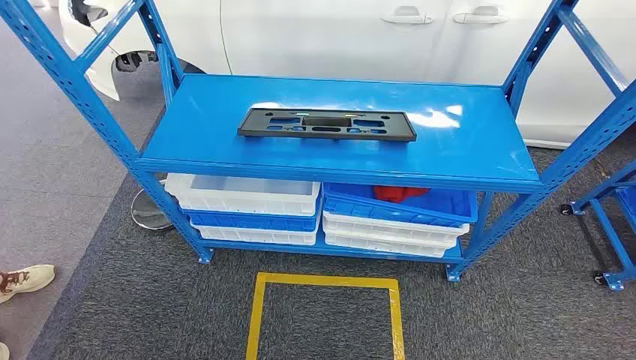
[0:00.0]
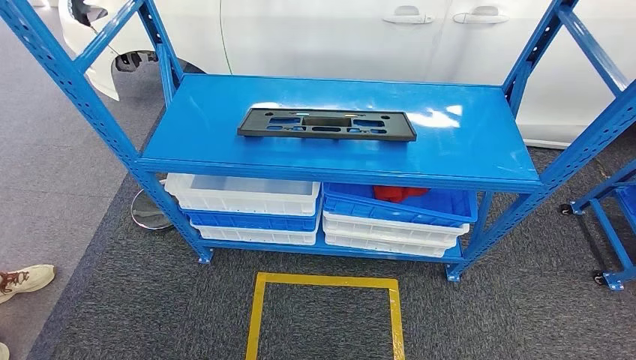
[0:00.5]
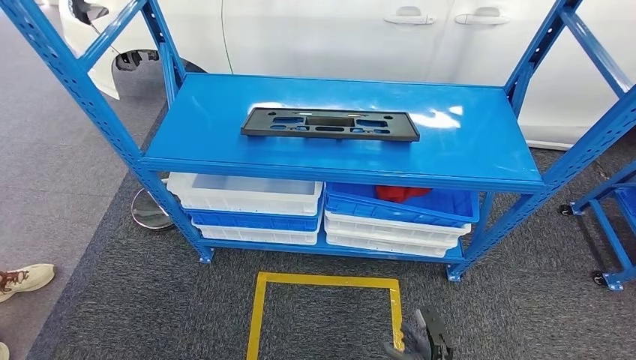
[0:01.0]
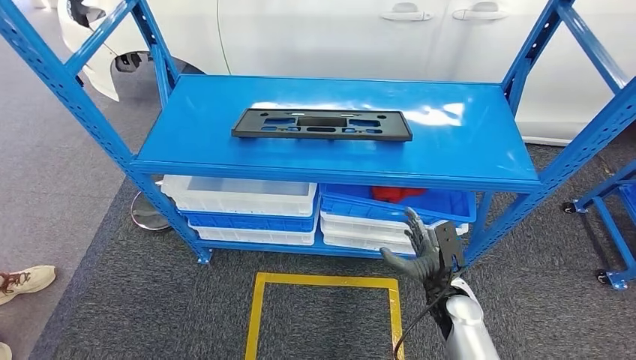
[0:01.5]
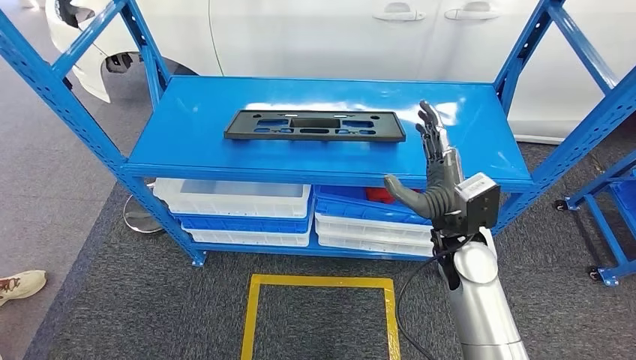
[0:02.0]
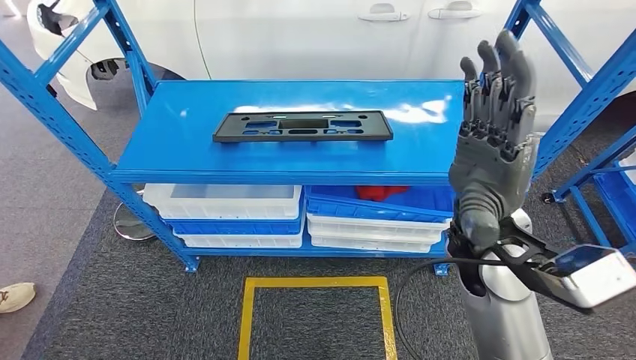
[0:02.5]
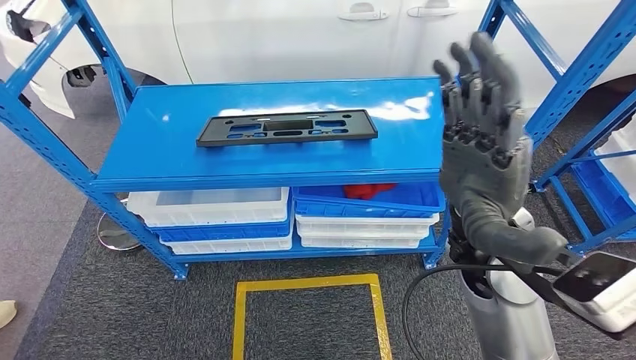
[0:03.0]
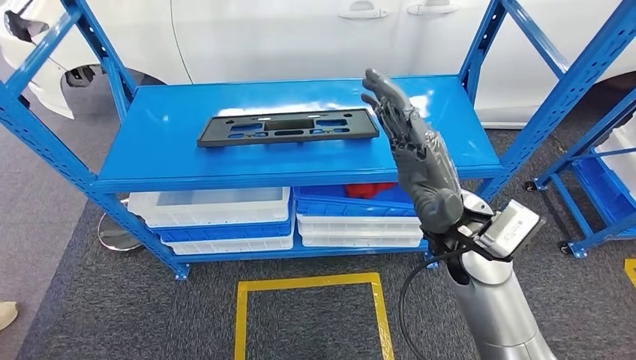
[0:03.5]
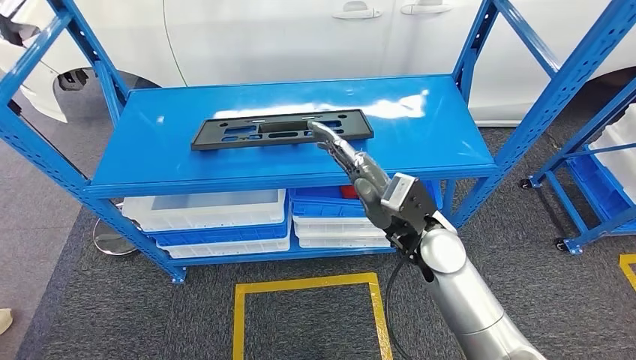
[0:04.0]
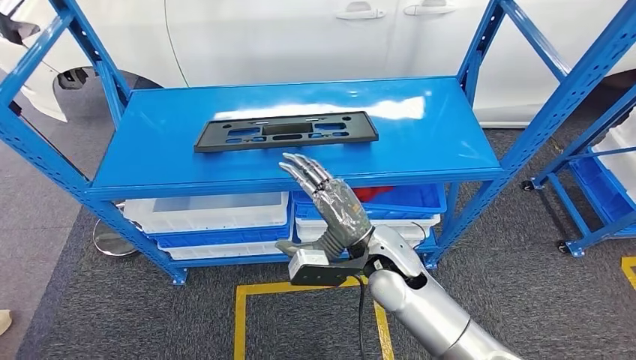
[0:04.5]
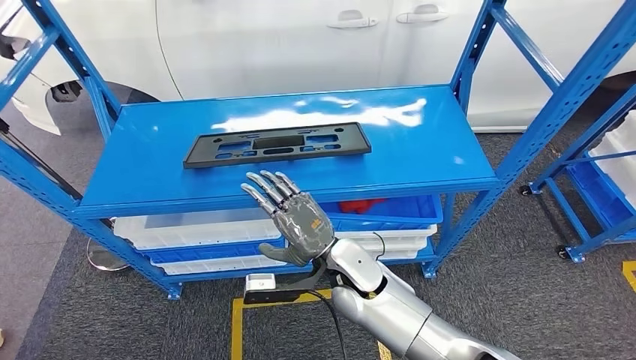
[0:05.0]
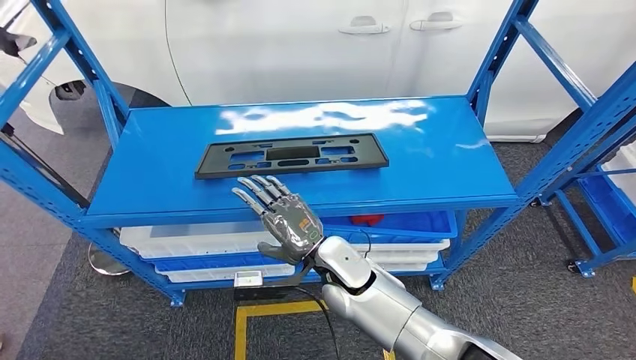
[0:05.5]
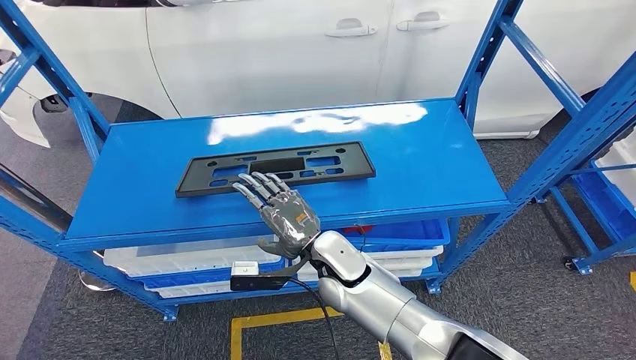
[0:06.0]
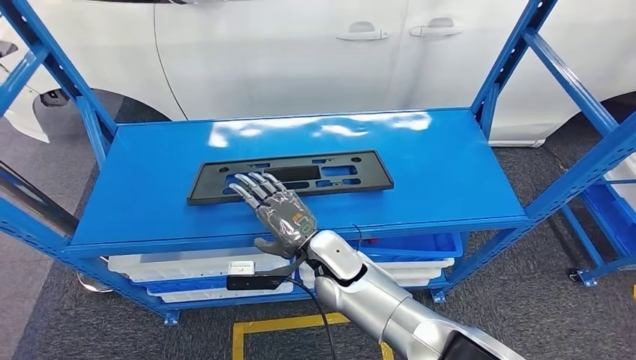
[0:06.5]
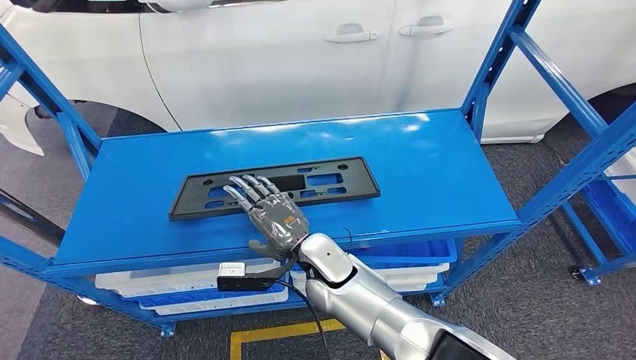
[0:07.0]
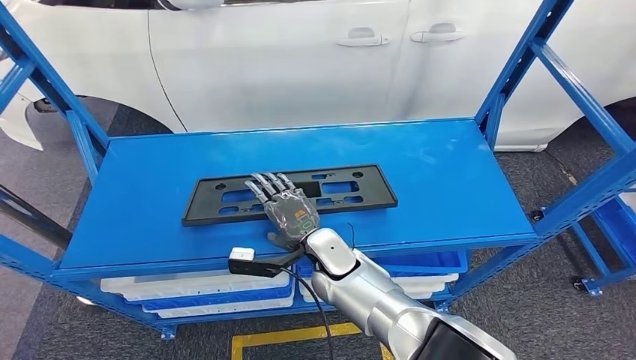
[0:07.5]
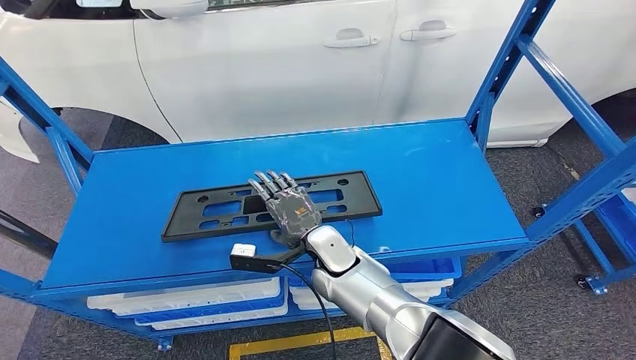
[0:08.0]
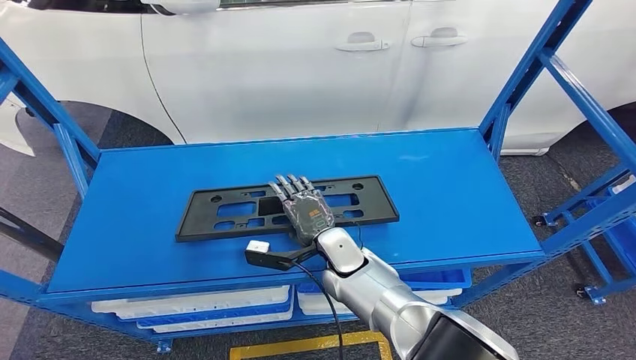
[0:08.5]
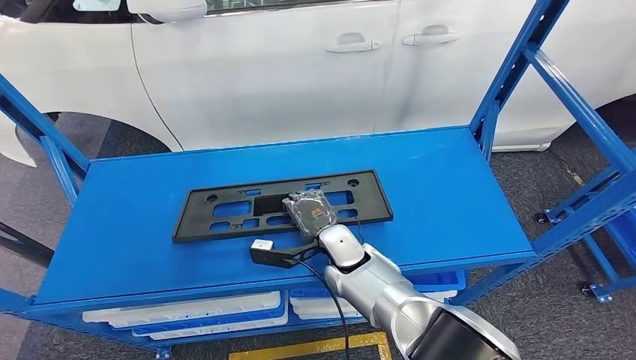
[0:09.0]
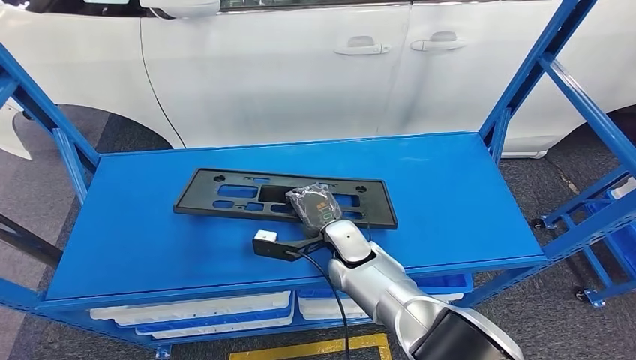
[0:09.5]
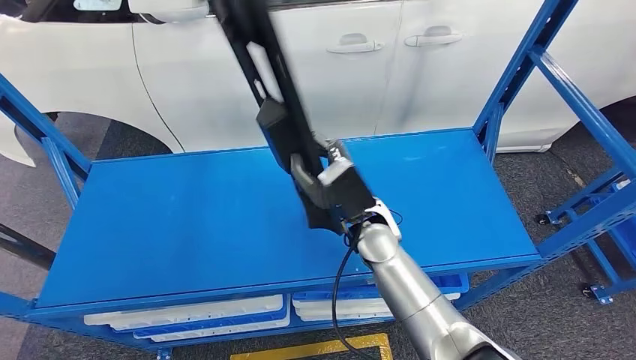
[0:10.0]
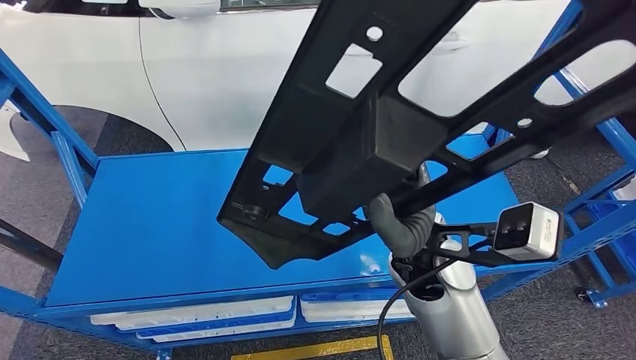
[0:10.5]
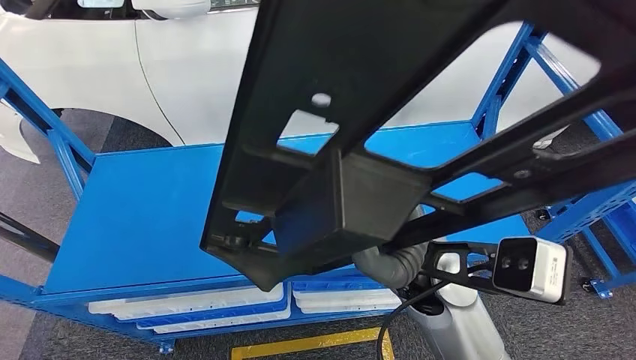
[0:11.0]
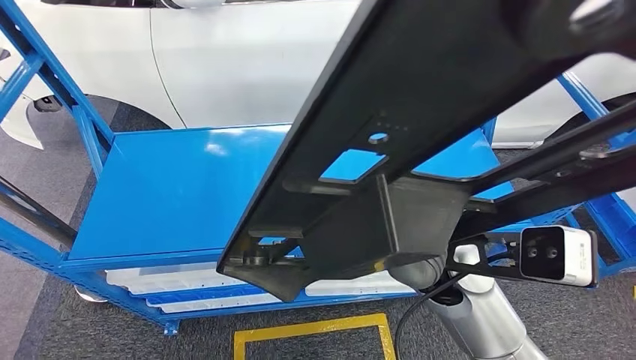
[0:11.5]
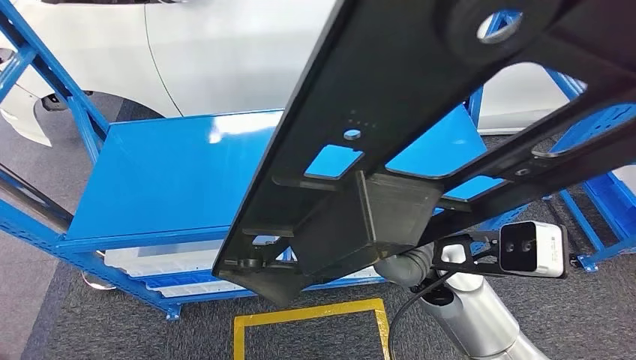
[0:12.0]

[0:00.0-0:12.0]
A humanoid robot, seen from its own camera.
Step, 0:00.0 to 0:10.0: Pick up the small component from the shelf.

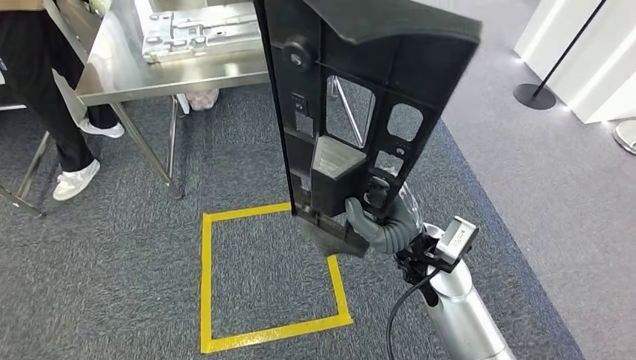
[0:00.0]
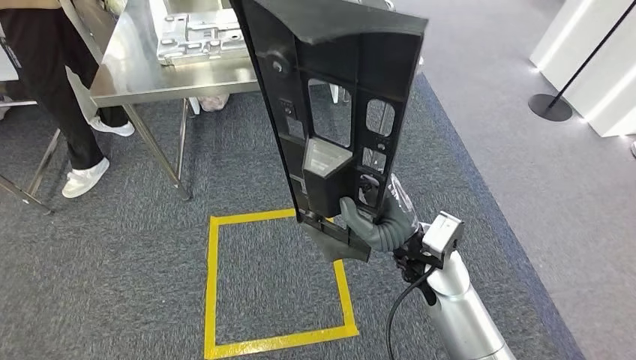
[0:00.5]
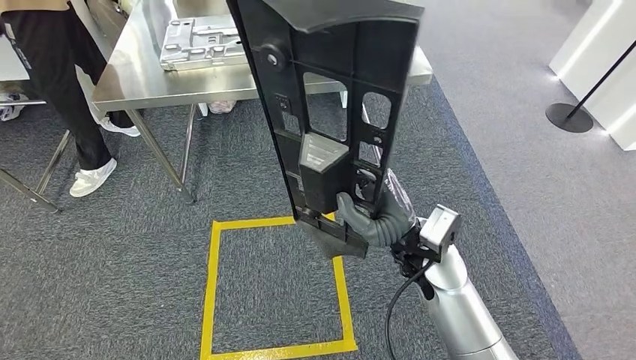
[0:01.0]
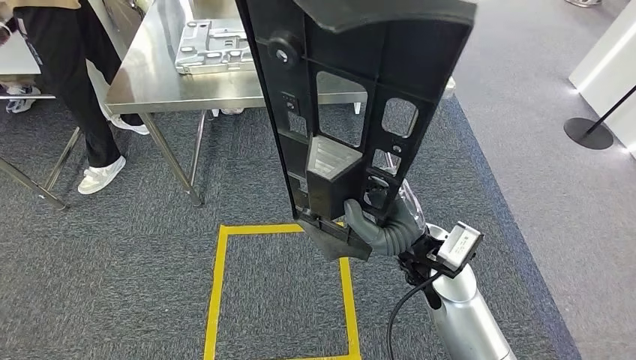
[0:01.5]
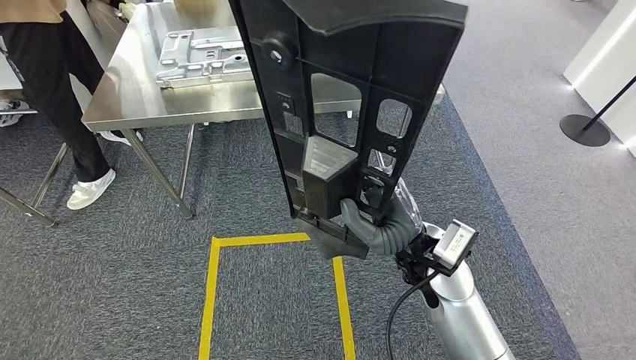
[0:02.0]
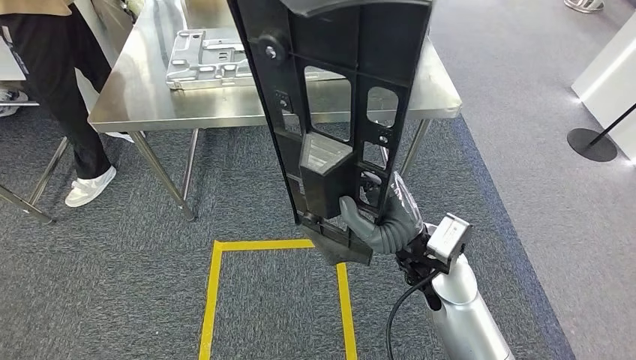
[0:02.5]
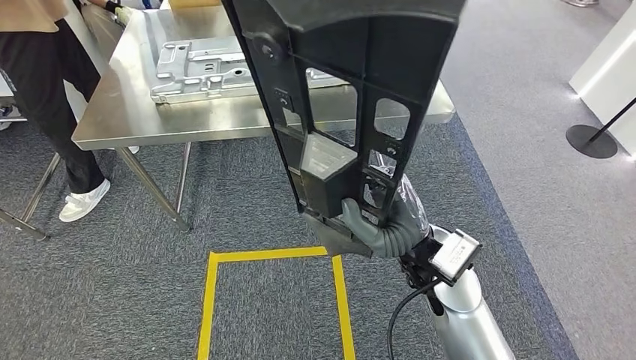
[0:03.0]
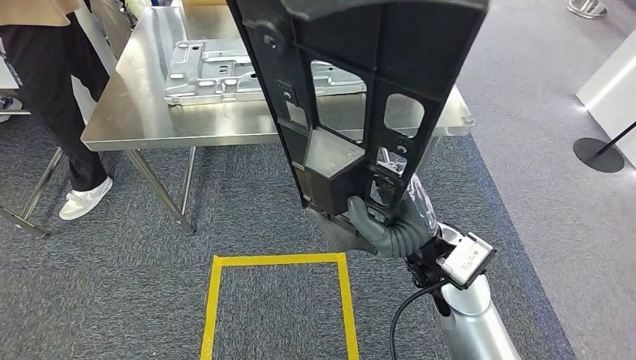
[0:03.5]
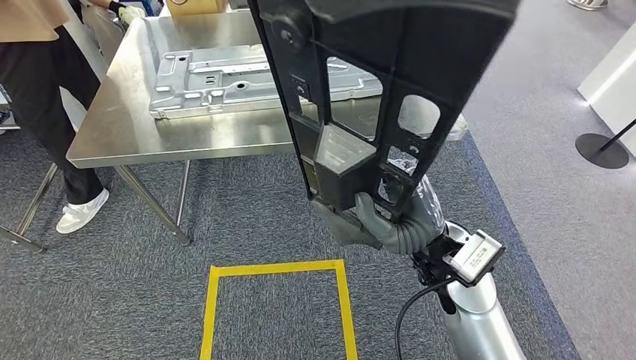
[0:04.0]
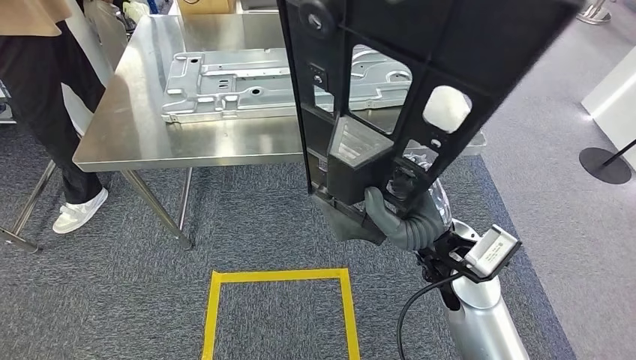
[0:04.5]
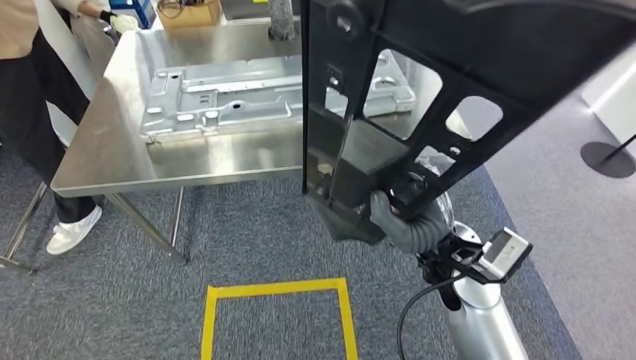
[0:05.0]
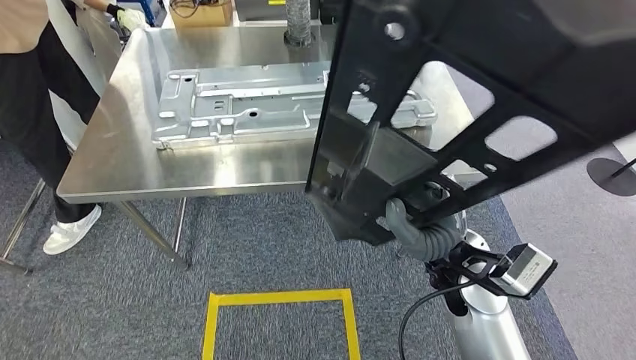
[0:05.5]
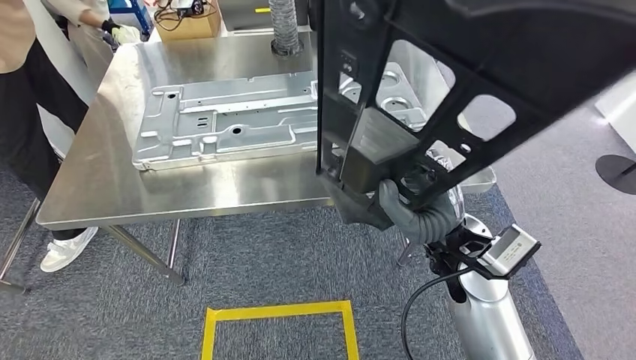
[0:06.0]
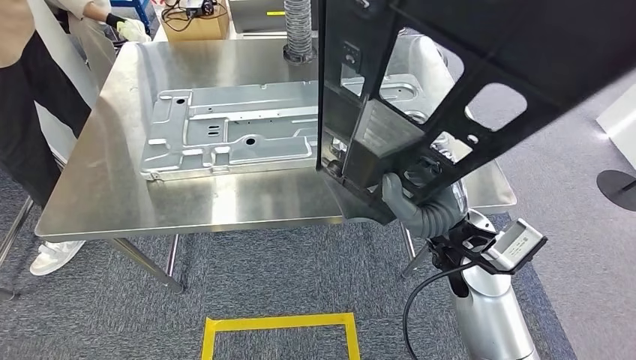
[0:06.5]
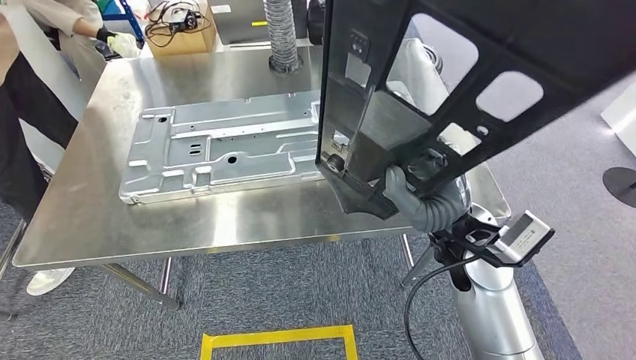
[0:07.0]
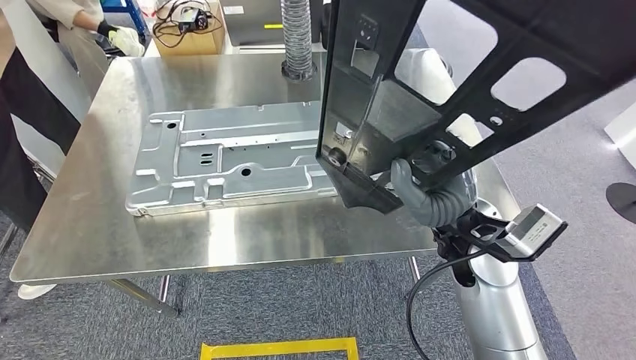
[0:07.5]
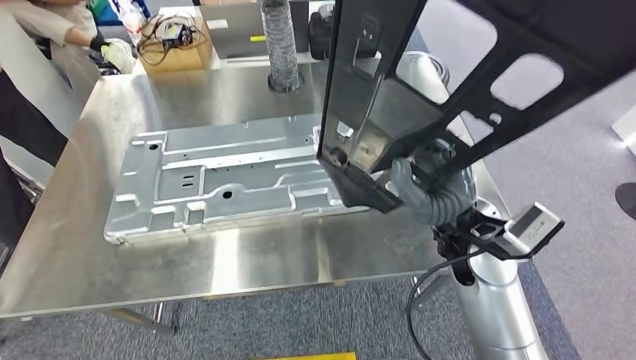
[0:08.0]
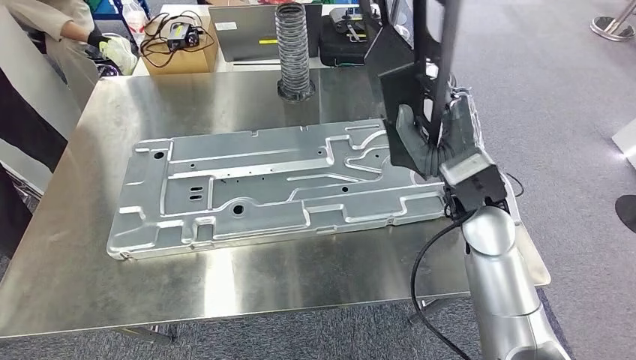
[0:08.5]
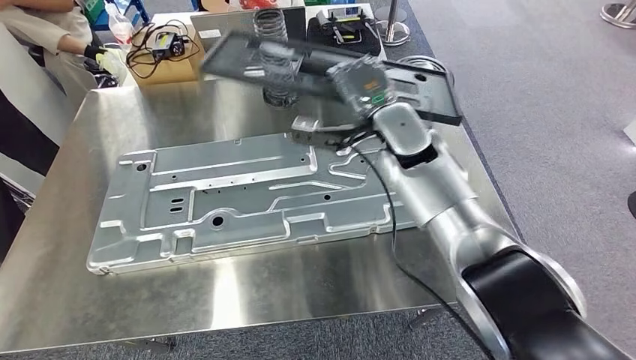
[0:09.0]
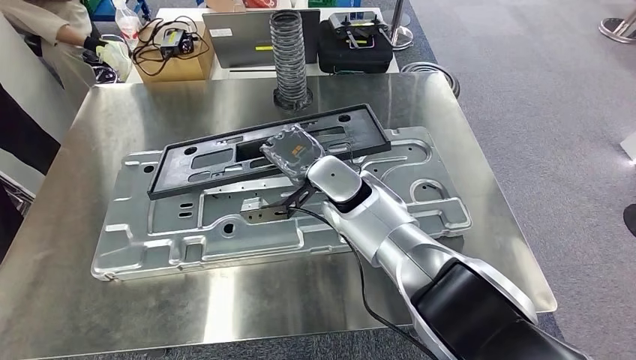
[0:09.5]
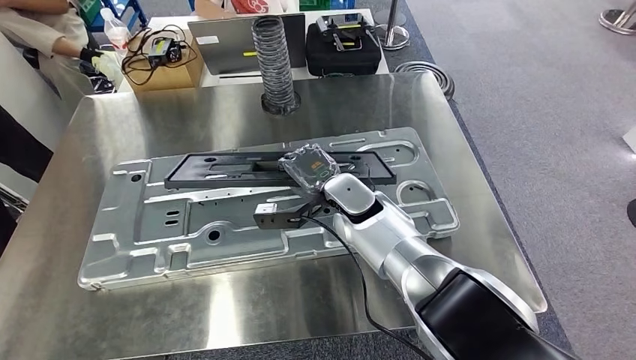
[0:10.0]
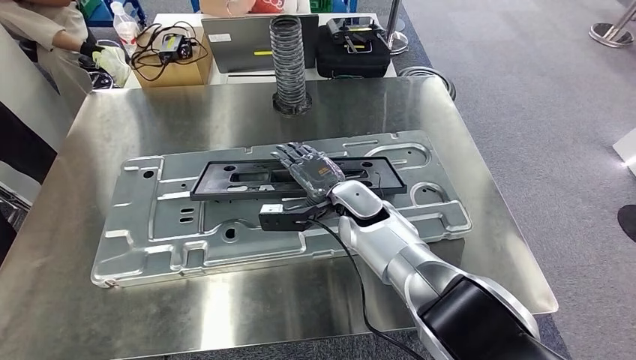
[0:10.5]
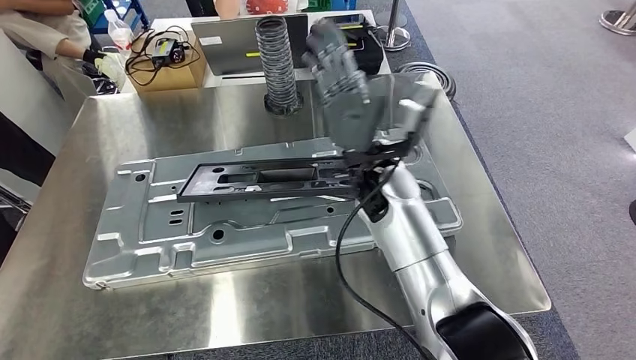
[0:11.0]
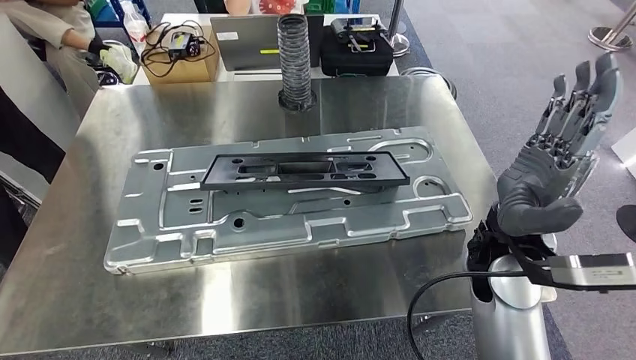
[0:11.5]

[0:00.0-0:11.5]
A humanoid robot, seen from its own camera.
Step, 0:00.0 to 0:08.5: Move the small component to the workbench.
